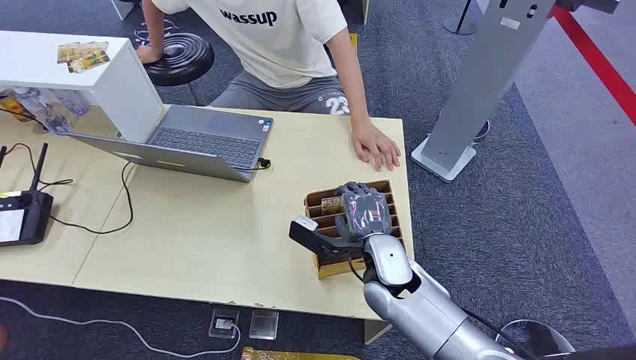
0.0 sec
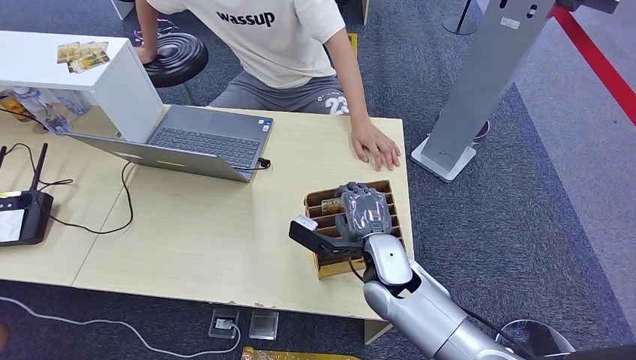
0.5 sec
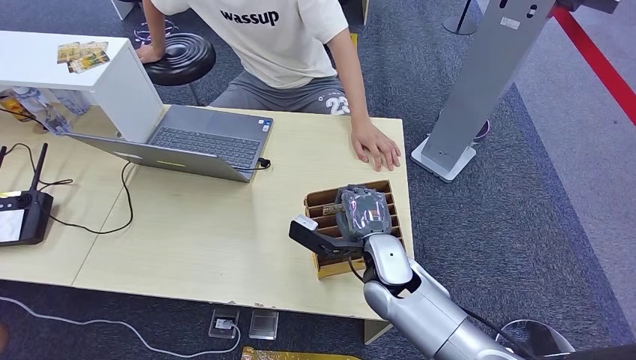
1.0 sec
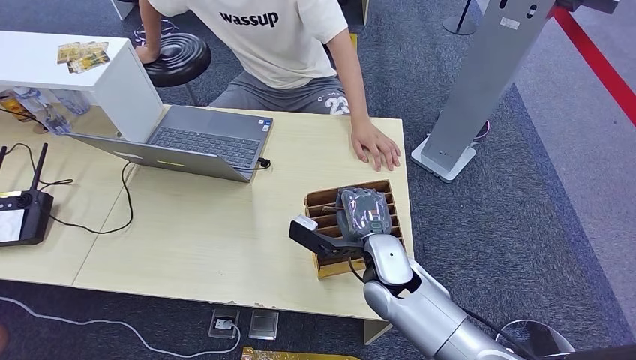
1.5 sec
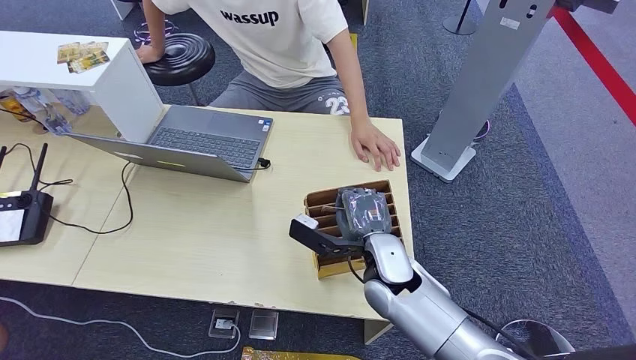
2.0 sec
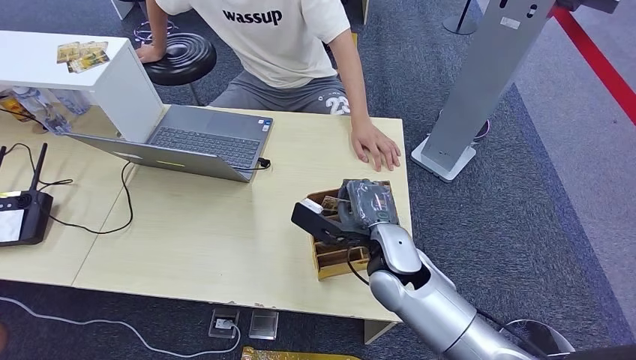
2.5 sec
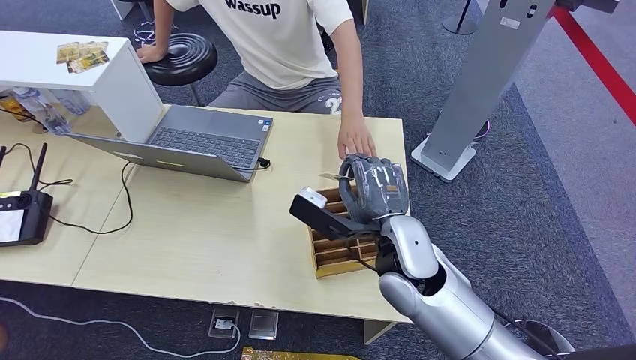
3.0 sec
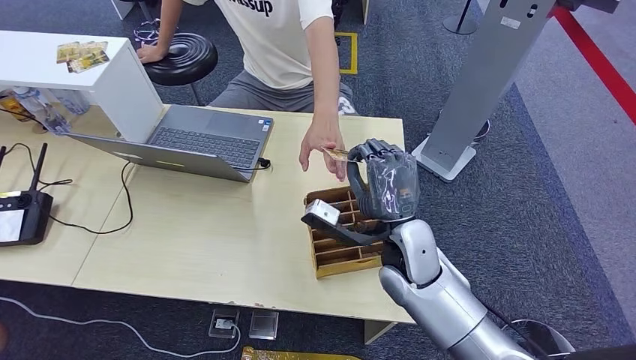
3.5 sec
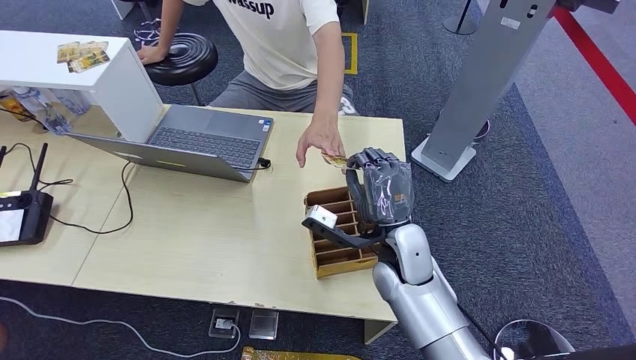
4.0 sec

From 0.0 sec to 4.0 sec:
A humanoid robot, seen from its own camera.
Step, from 0.0 sec to 2.5 sec: Pick up the key card from the card box.
Step, from 3.0 sec to 4.0 sec: Hand the key card to the target.
From 2.0 sec to 4.0 sec: The right hand moves about 10 cm upward and comes back.
